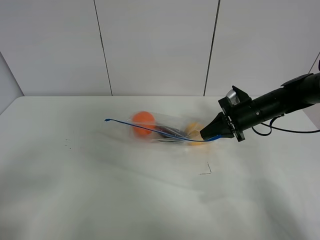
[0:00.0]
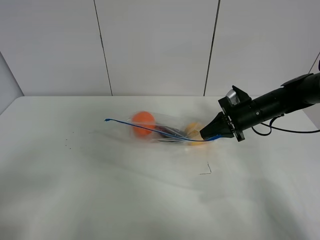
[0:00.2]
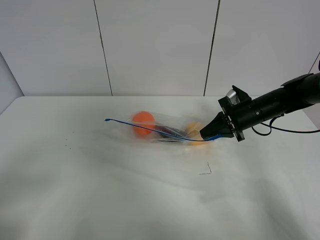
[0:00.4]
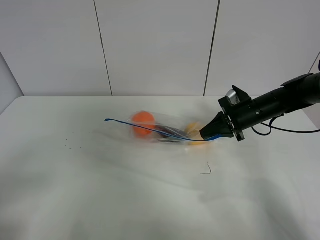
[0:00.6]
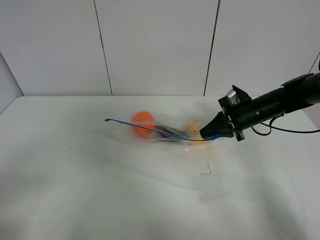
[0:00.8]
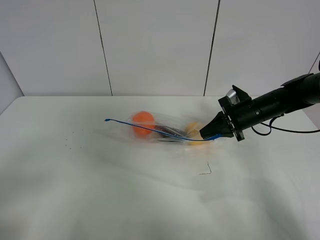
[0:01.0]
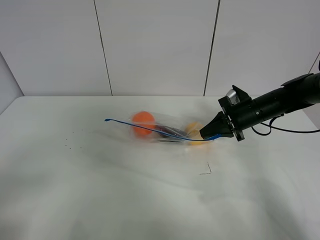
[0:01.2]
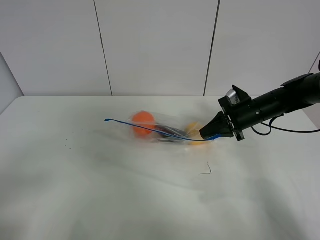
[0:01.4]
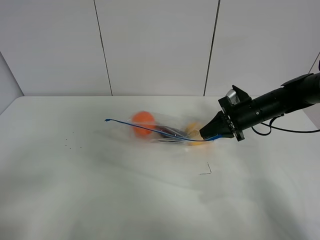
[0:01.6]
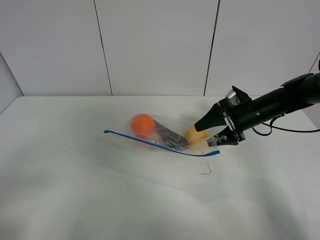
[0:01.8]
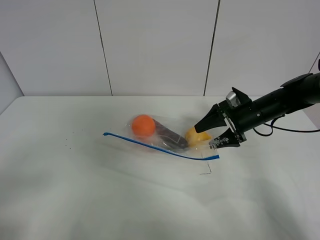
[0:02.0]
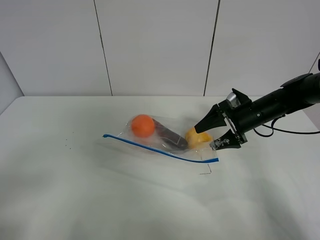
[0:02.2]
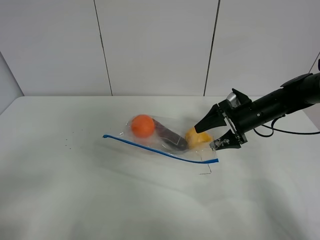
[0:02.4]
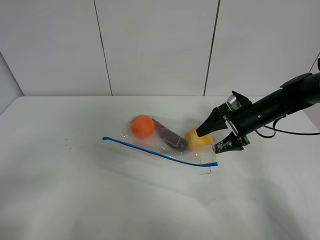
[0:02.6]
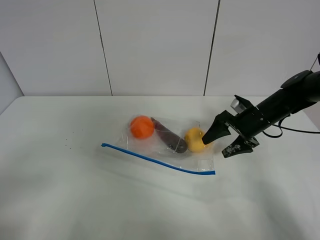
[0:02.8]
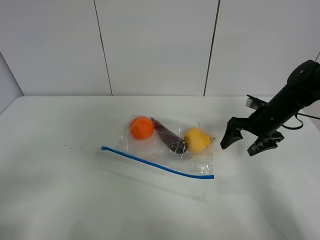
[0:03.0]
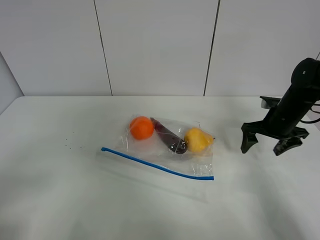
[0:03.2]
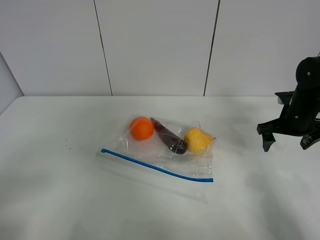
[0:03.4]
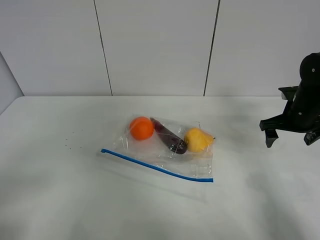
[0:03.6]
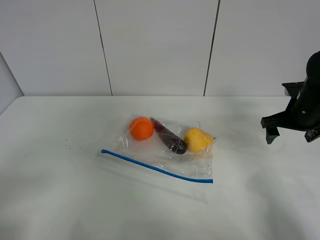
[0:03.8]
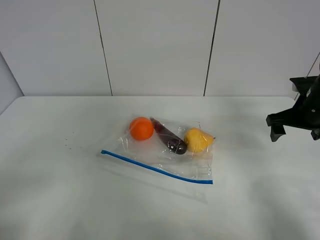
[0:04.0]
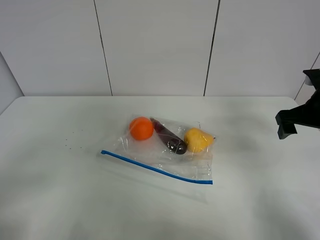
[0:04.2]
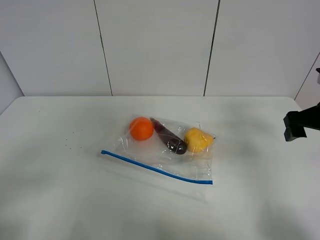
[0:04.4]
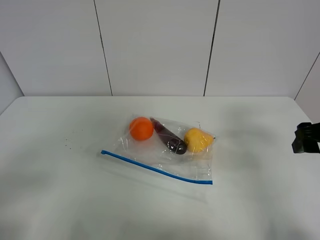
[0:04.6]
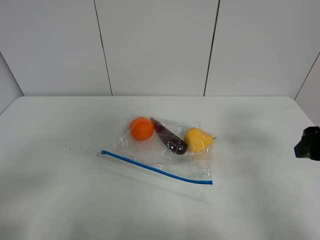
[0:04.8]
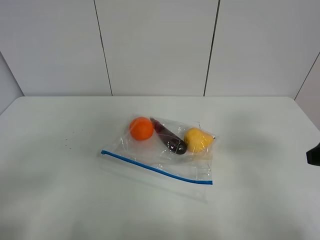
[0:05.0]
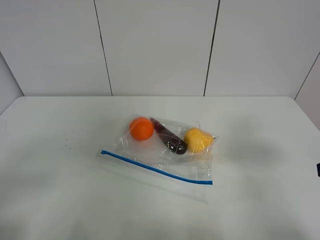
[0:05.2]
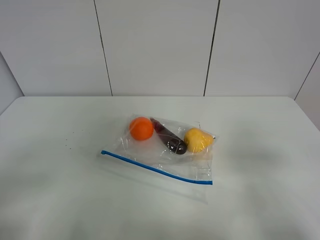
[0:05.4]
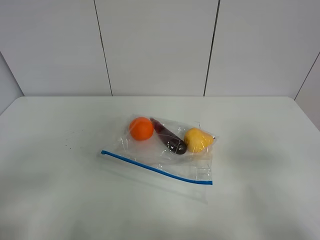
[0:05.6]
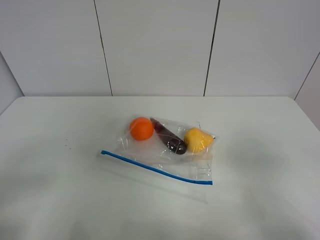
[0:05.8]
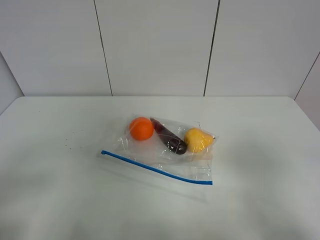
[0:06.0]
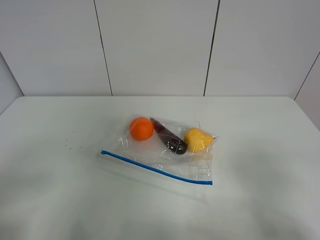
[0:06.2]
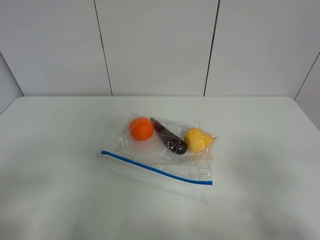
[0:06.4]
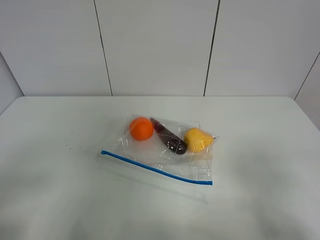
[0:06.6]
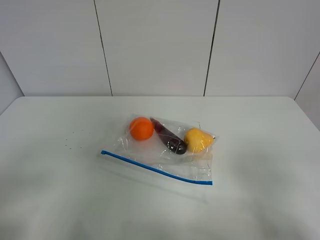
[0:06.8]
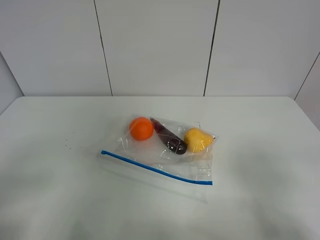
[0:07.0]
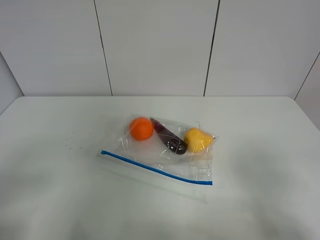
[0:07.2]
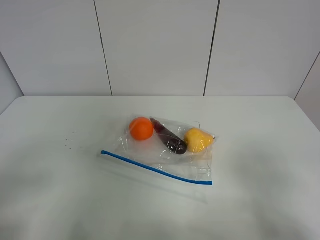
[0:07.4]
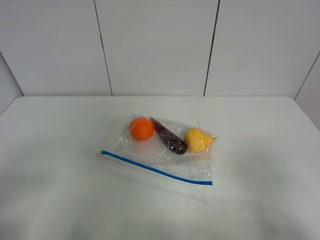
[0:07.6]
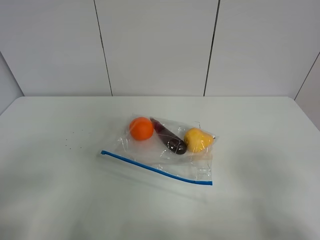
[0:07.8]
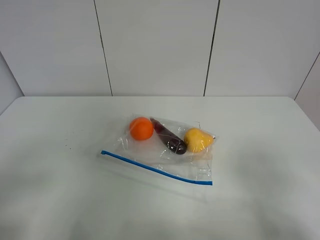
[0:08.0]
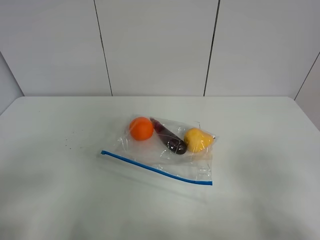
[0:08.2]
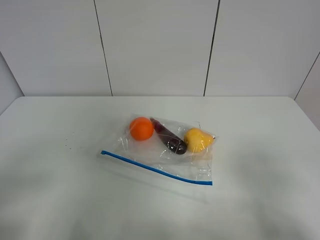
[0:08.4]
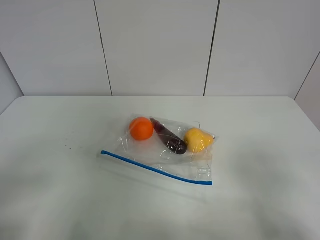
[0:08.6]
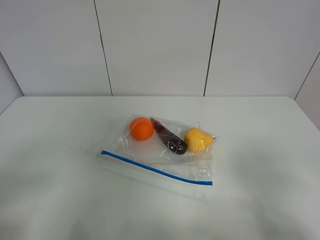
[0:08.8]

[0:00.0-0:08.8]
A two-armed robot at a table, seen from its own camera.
Step, 0.0 to 2.8 s: Place the fruit bag with right gripper.
1.4 to 3.0 s: The right gripper opens its fingers.
3.0 to 4.4 s: The right gripper heads upward and backward, covering roughly 15 cm.
4.4 to 5.8 s: The right gripper goes approximately 25 cm backward.
7.4 to 8.8 s: Neither gripper changes place.

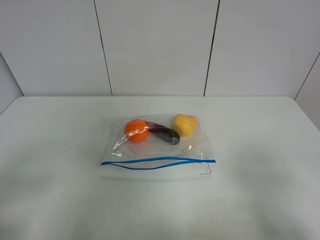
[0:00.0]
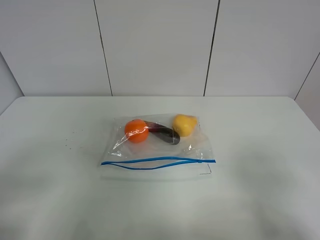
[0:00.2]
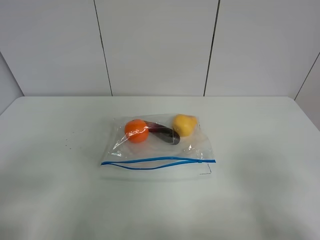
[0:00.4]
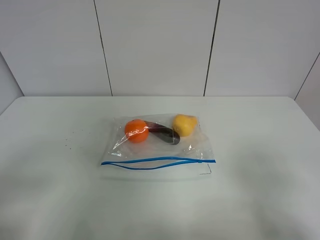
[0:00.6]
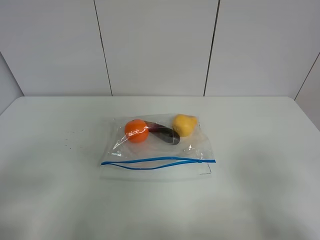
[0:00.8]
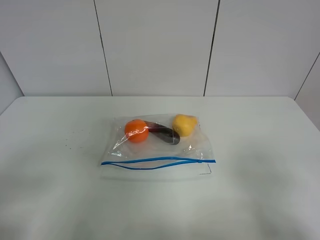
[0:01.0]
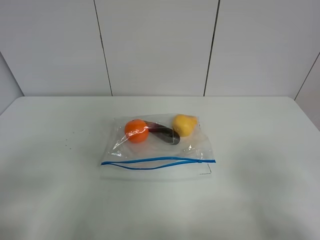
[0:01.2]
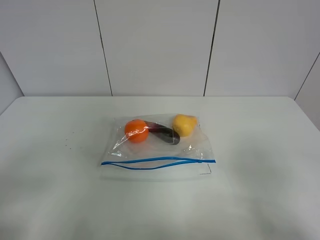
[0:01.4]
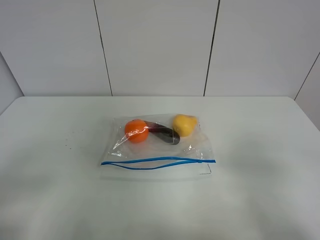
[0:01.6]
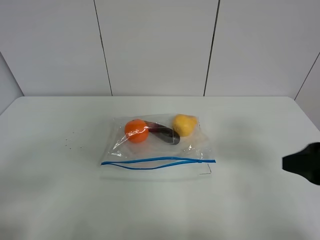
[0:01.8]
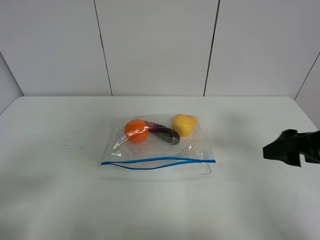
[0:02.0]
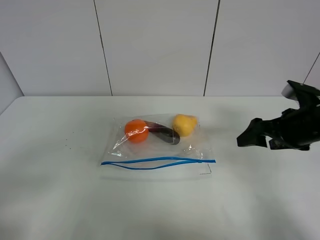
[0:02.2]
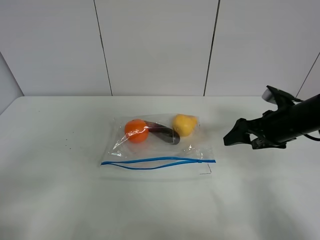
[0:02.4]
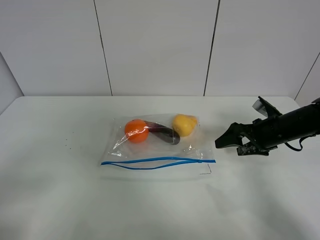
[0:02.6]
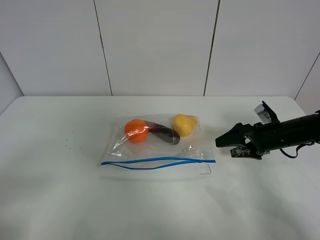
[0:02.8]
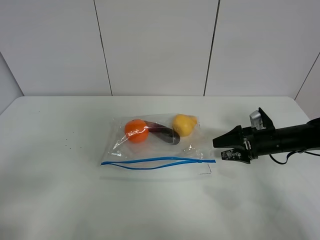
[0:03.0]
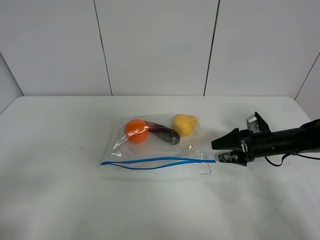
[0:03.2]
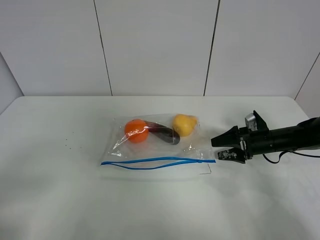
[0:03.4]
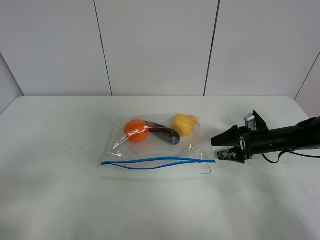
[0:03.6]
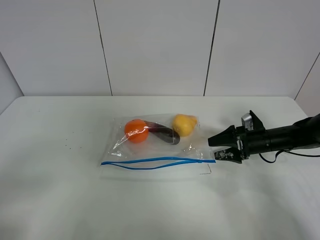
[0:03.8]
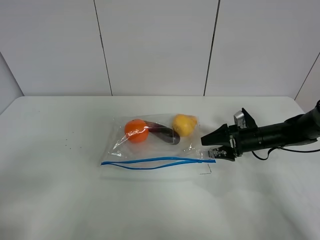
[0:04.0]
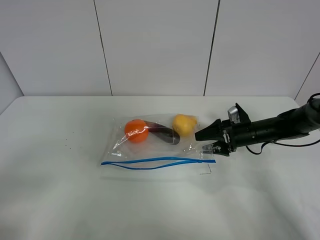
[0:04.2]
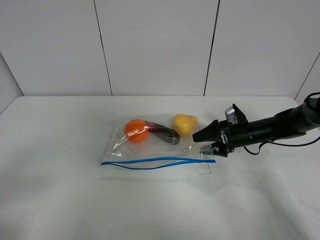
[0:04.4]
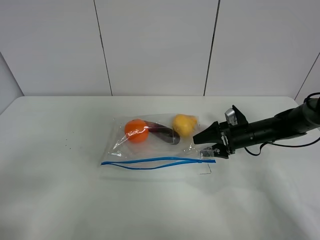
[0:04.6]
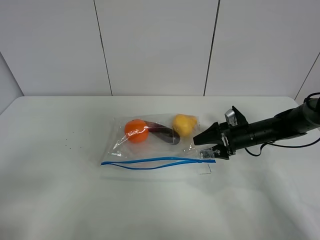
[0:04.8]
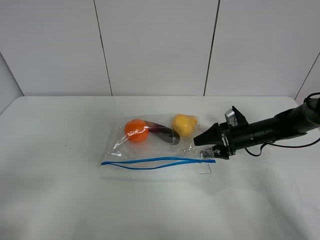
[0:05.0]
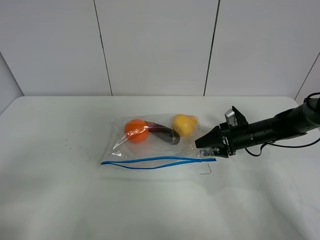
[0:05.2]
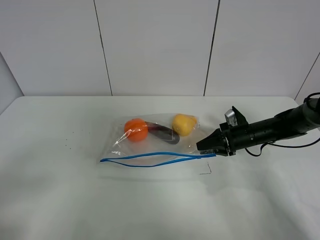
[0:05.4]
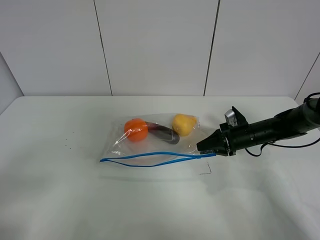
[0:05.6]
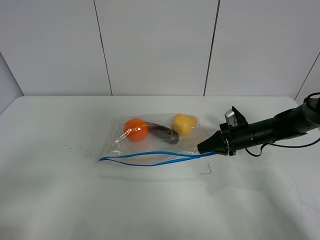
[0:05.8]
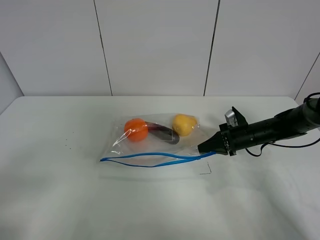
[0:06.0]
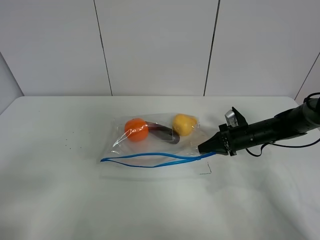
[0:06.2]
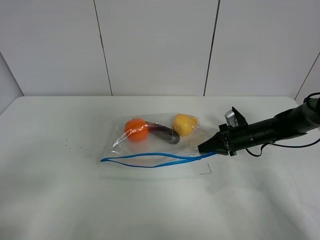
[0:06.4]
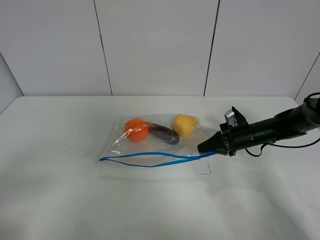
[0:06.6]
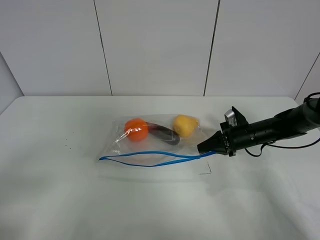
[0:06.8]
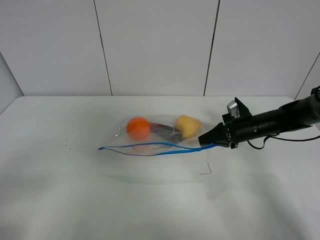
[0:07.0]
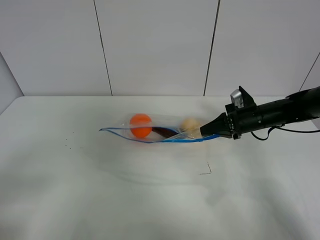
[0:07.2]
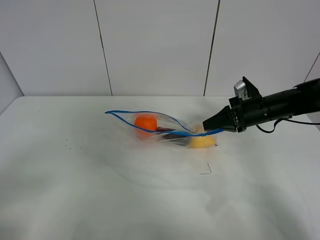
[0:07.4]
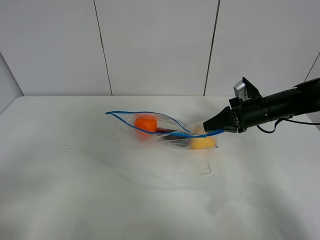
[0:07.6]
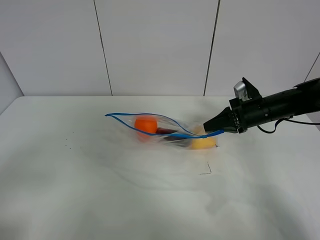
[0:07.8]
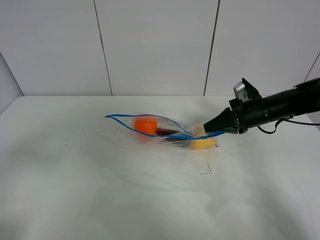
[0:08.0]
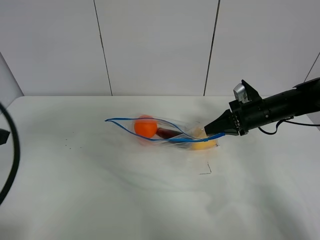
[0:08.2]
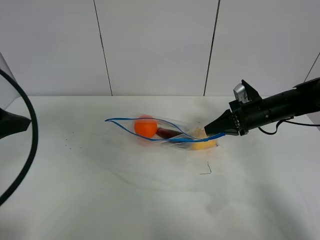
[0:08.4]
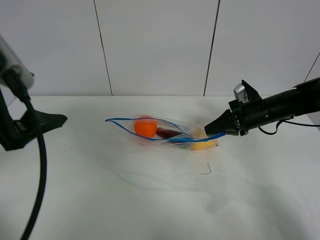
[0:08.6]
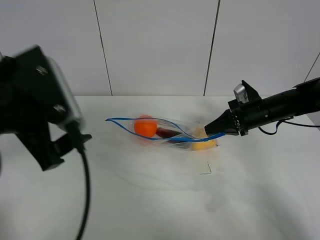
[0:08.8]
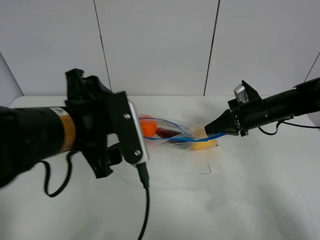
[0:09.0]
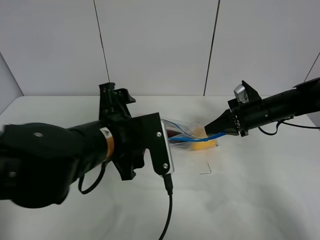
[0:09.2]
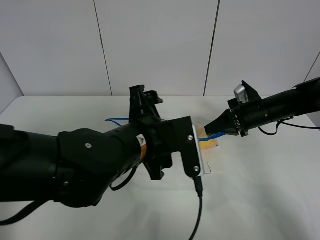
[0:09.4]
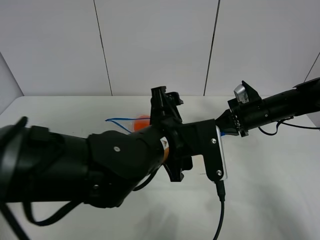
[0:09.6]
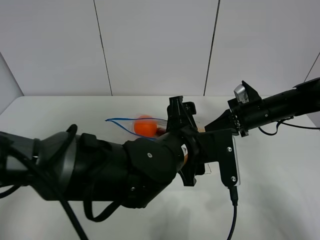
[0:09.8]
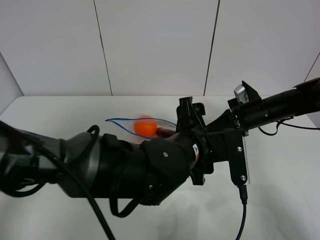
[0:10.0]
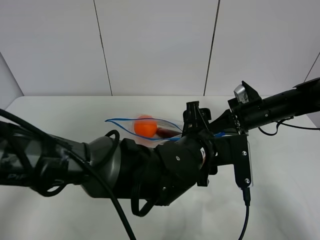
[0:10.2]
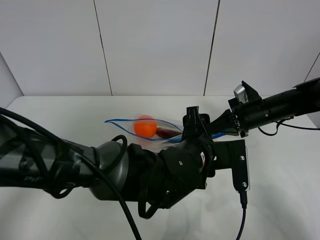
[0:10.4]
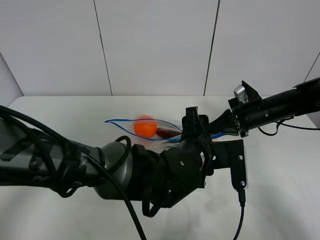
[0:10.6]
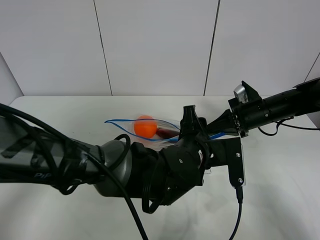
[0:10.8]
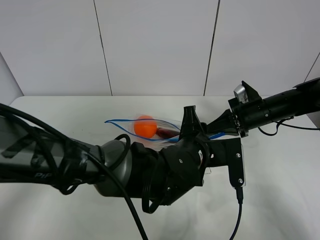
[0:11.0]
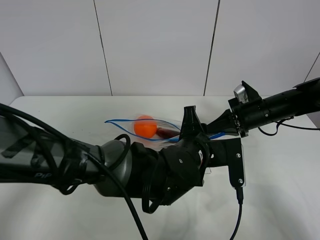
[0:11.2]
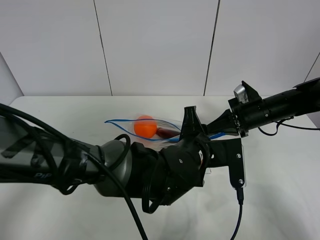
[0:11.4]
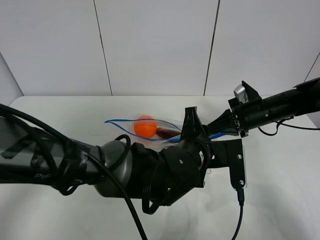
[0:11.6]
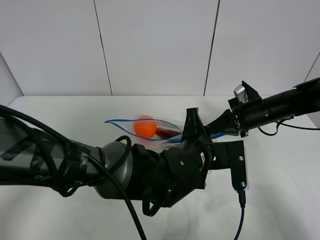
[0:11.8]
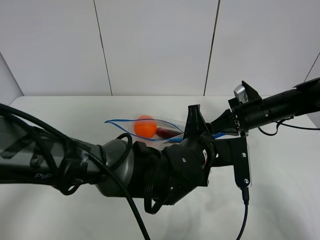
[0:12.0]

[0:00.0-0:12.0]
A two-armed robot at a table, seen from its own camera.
Step, 0.0 to 5.8 s: Grasp the fruit bag with right gripper.
Step, 6.0 to 7.8 s: Lift the fruit bag with your right gripper.
1.6 to 3.0 s: The right gripper heads forward and downward, covering approximately 35 cm.
3.0 to 4.4 s: The right gripper moves roughly 5 cm.
4.4 to 6.0 s: The right gripper closes its fingers.
6.0 to 7.6 s: The right gripper goes approximately 10 cm upward.
7.6 to 9.0 s: The left gripper shifts some 30 cm to the right and forward.
9.0 to 10.4 s: The left gripper moves to the right and downward, some 20 cm.
10.4 to 12.0 s: The left gripper closes its fingers.

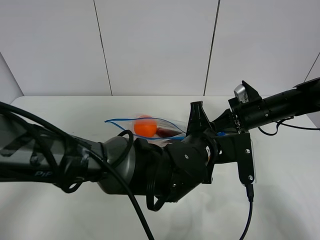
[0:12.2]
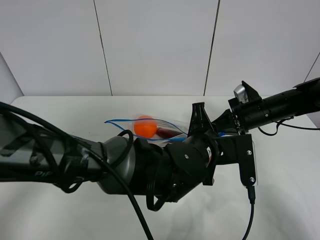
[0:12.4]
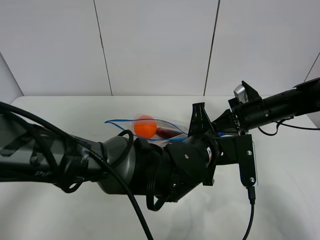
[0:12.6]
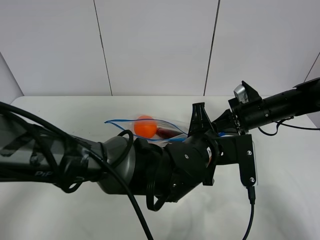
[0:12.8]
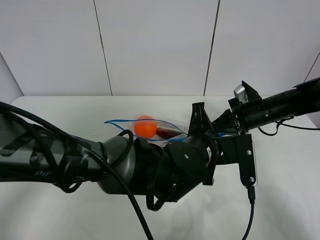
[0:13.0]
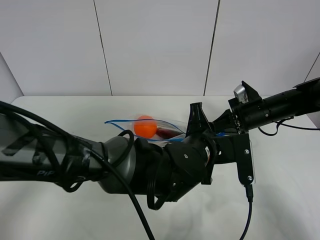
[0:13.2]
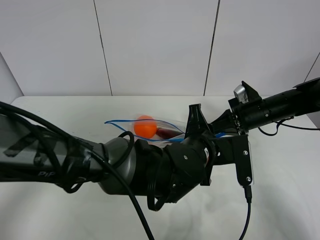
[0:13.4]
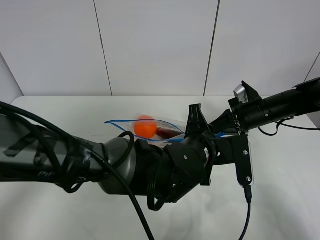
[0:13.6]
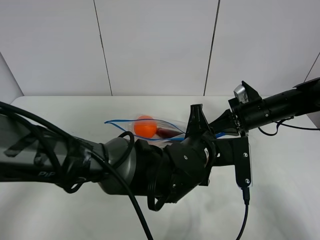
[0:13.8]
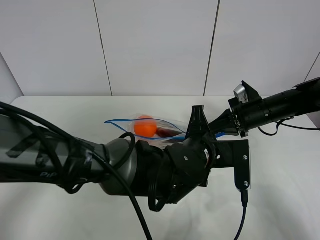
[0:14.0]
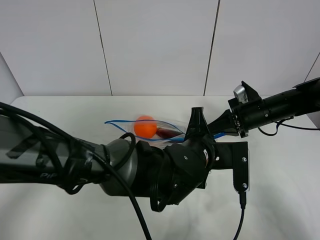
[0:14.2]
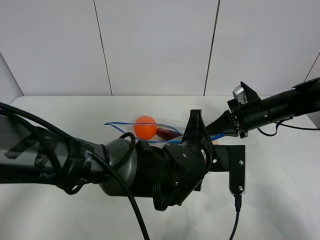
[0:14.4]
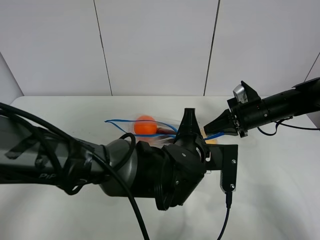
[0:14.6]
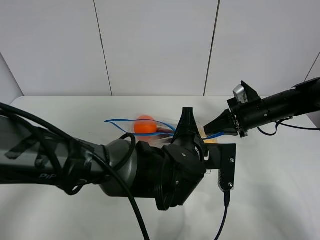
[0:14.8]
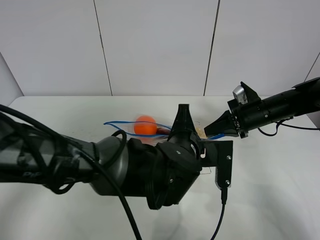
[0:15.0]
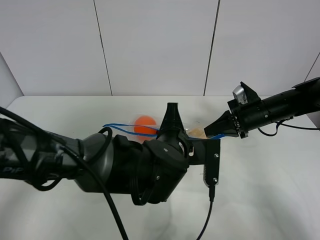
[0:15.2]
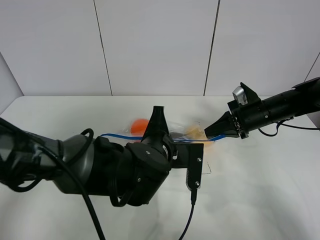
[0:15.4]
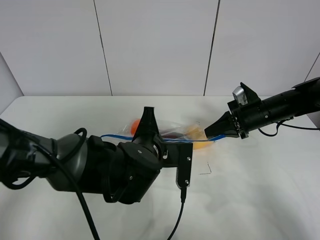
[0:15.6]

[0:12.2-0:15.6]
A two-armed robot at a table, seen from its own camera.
12.2 to 13.8 s: Both grippers stay about where they are.
13.8 to 15.6 s: The left gripper goes approximately 10 cm to the left.
